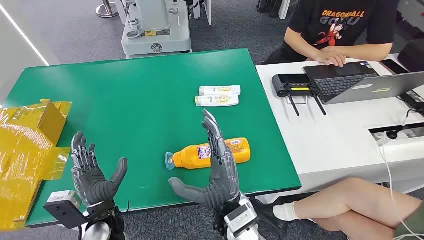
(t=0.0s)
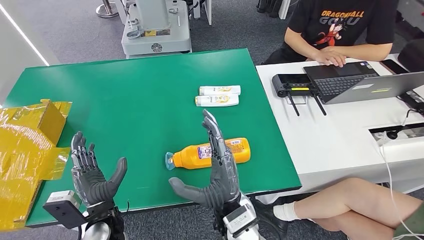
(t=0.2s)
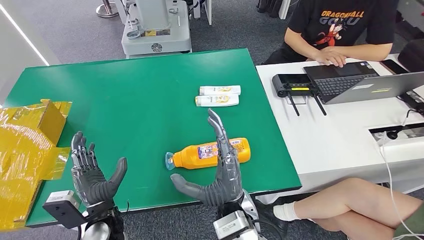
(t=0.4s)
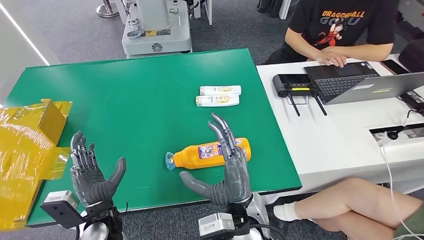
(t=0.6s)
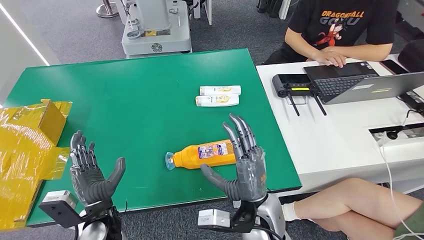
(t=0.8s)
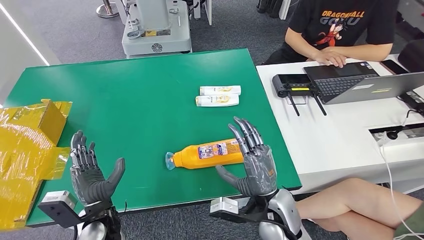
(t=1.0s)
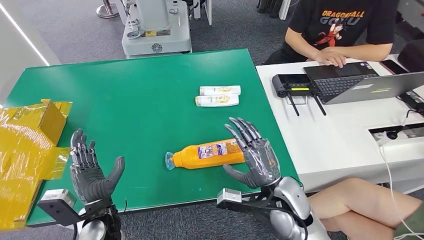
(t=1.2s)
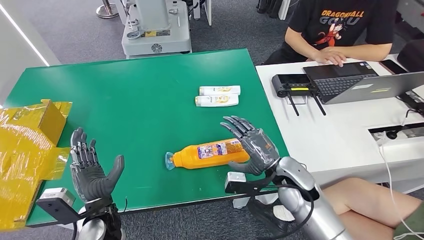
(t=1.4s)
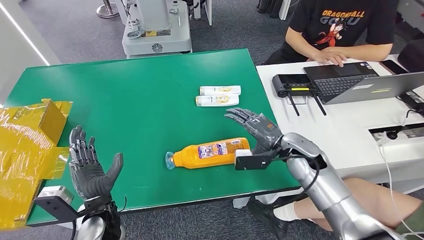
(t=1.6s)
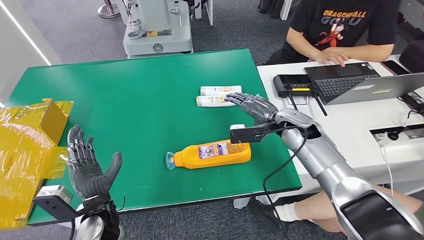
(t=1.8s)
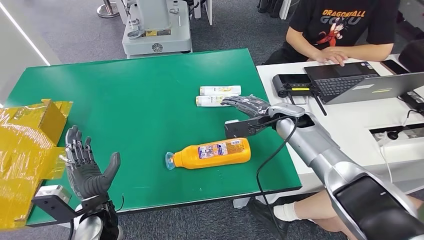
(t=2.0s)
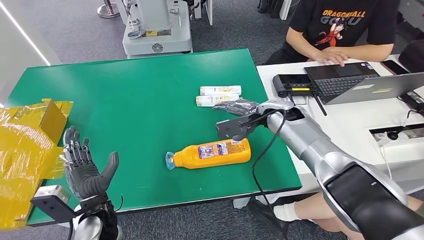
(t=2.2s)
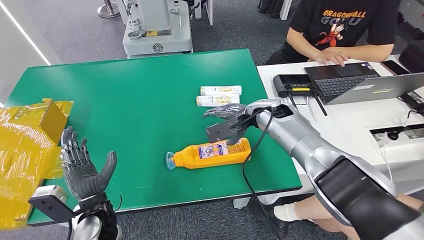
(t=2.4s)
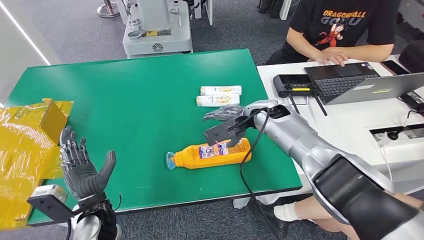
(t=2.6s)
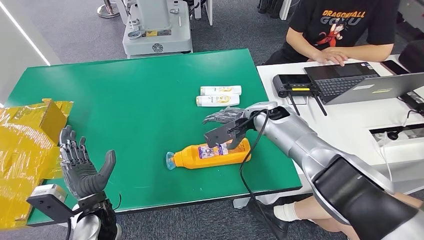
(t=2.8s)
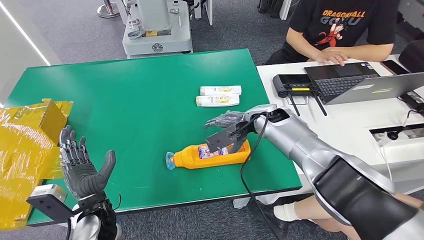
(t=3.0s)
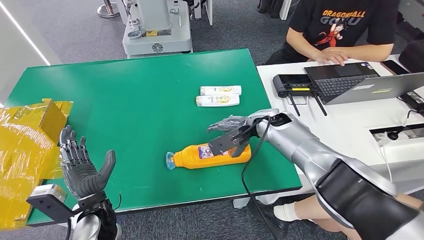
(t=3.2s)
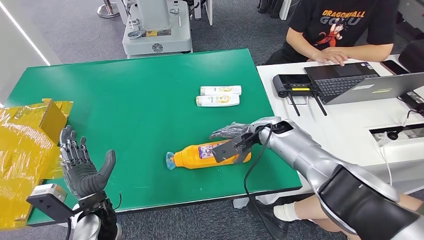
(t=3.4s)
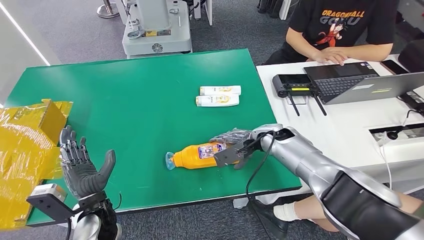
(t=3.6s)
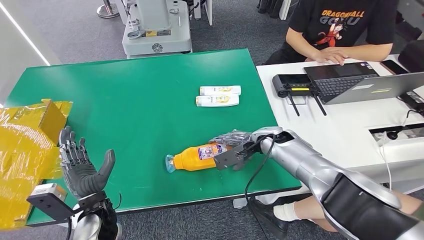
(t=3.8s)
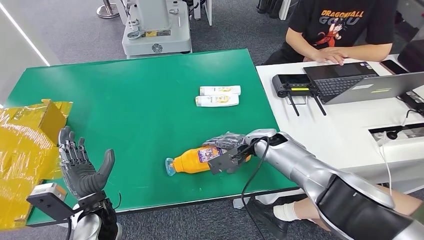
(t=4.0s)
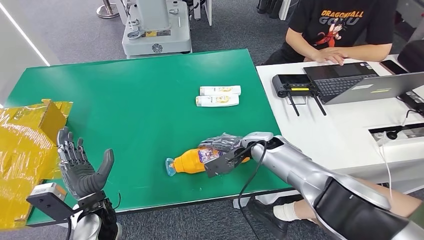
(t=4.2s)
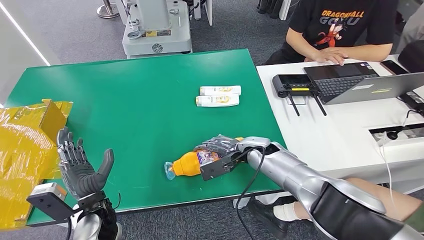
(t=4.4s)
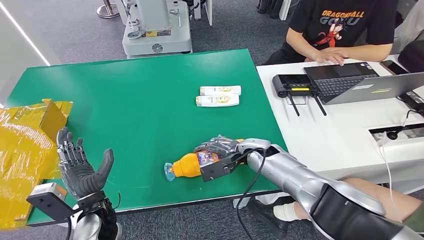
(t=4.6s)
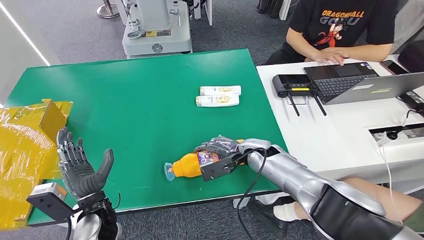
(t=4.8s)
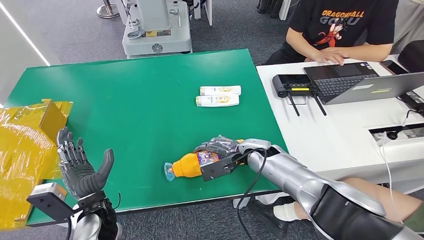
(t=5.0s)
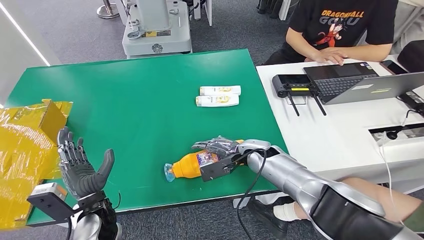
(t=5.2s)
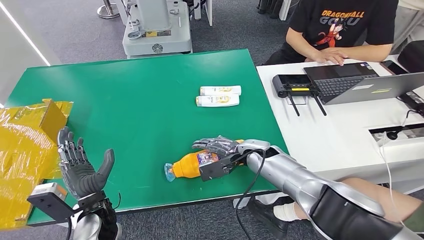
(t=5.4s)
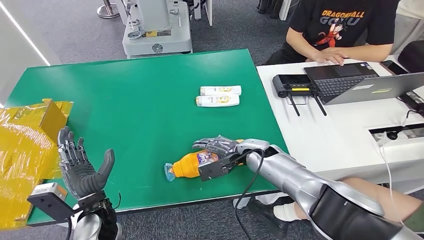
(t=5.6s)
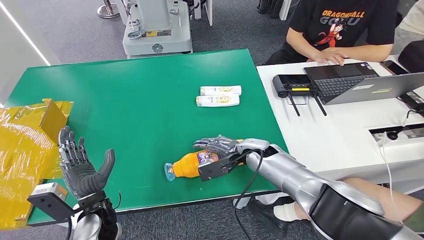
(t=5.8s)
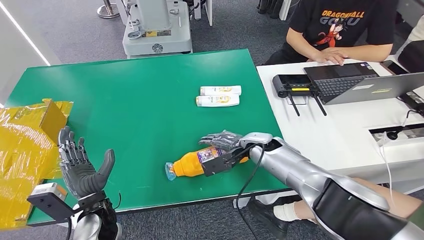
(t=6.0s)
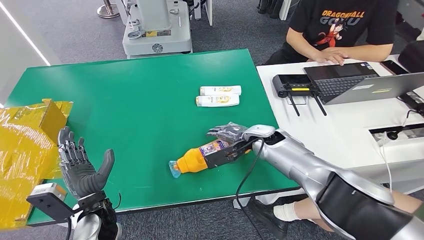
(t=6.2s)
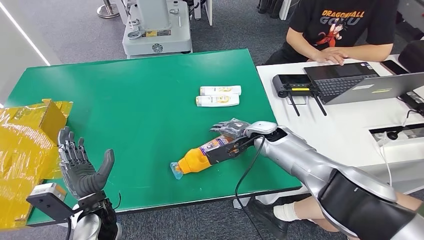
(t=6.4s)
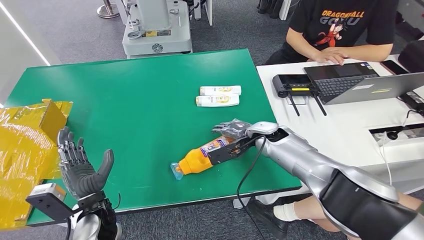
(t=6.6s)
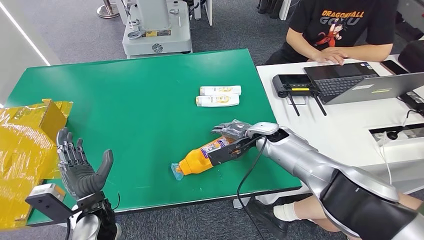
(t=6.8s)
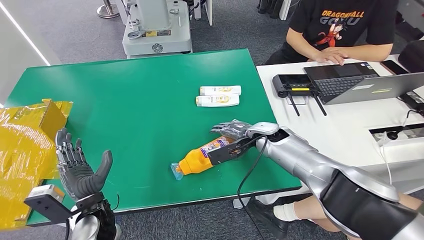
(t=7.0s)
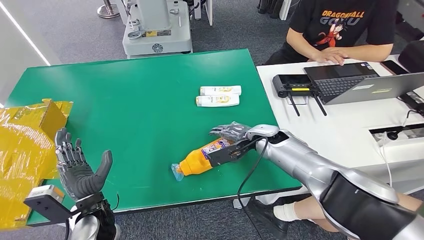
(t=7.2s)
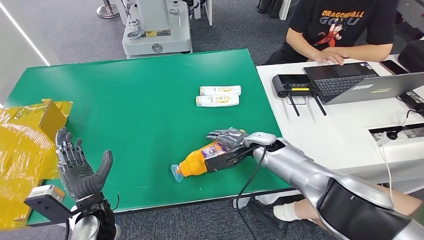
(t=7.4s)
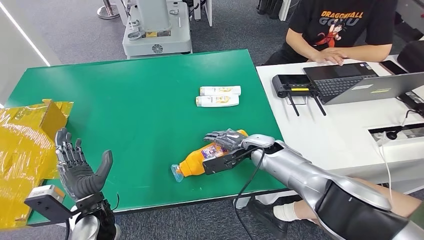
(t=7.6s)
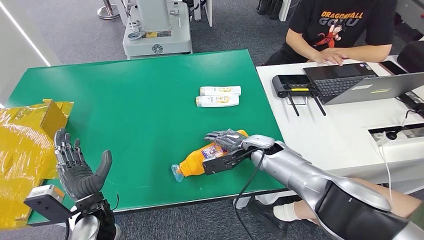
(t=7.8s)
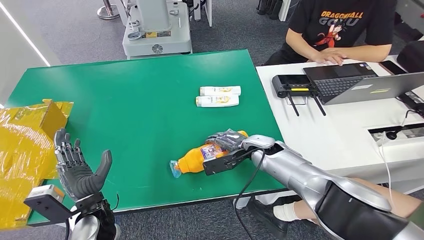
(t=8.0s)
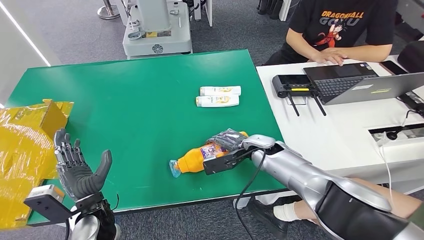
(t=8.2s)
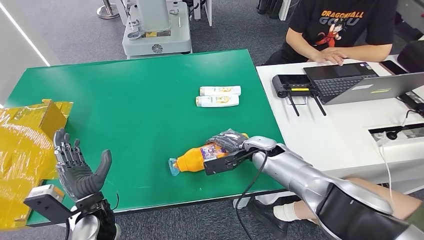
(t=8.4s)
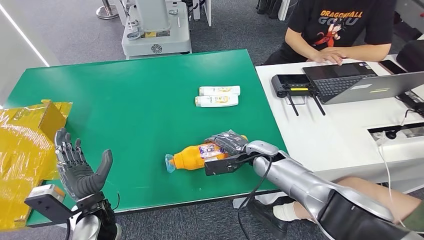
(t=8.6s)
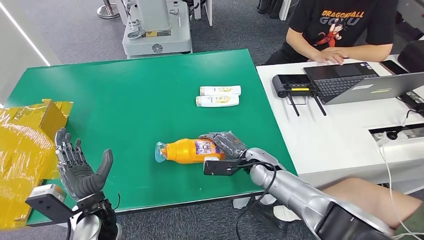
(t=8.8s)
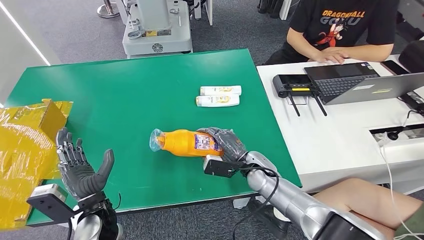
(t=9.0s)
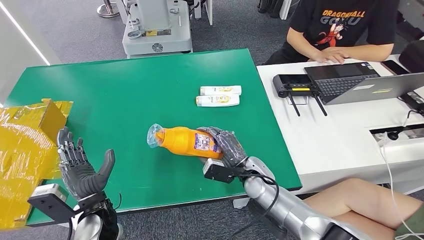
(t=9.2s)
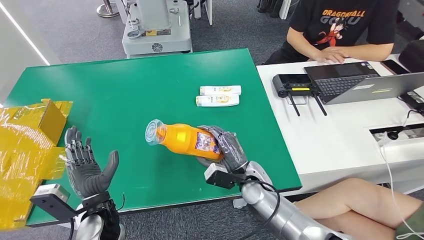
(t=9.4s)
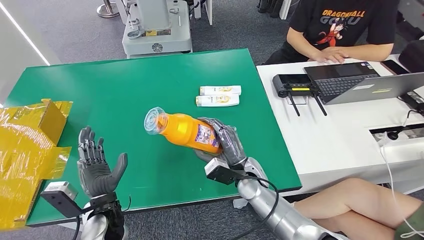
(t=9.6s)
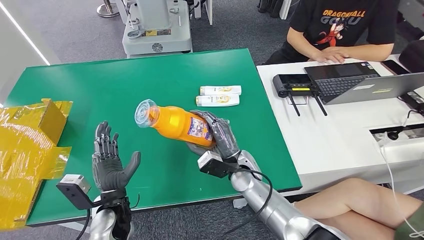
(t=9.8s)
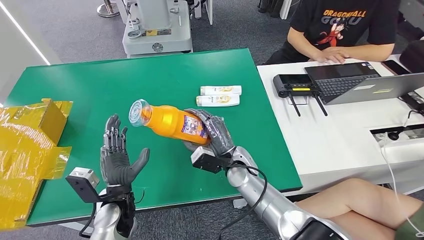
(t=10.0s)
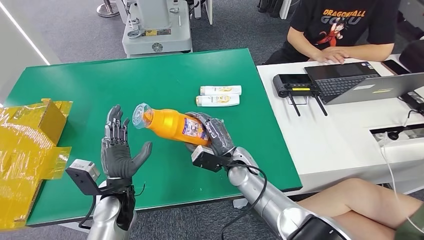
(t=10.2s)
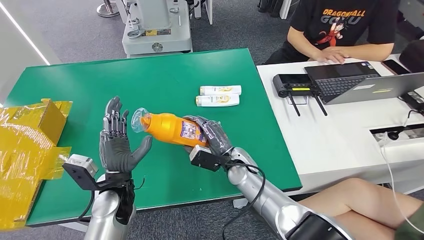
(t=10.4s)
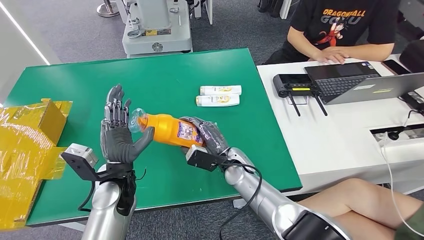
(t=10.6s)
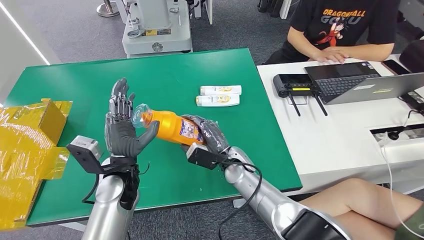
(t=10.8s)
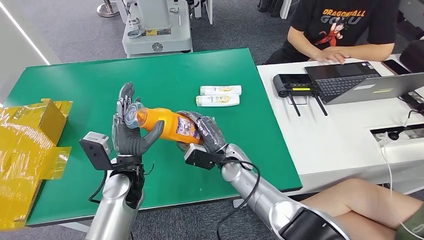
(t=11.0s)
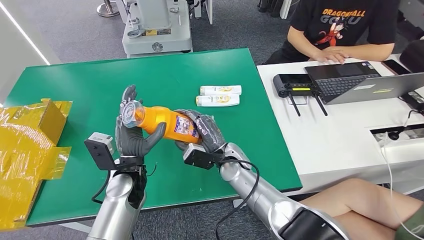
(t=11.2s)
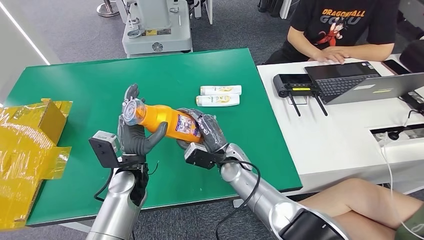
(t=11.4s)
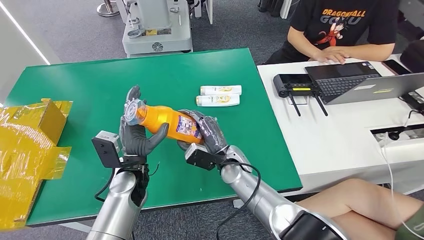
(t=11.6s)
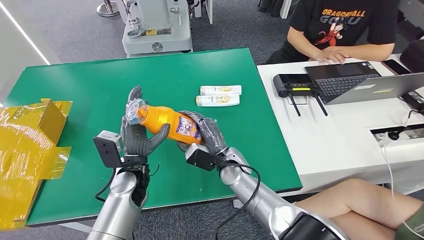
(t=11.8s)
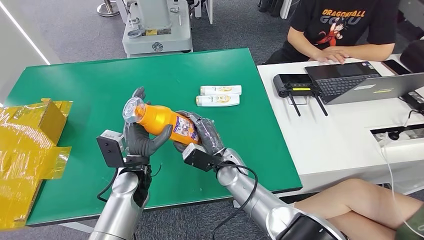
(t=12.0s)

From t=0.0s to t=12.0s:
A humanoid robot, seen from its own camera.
Step, from t=0.0s to t=9.2s: Pick up the bottle from the table.
From t=1.6s to t=3.0s: The right hand is displaced forward and upward by approximately 10 cm.
From t=3.0s to t=4.4s: The right hand goes some 10 cm downward and backward.
From t=4.4s to t=7.6s: The hands move only a little.
From t=7.6s to t=9.0s: The right hand heads backward, covering about 5 cm.
From t=9.0s to t=10.4s: The right hand travels to the left by about 5 cm. The left hand ends up roughly 5 cm from where it was.
From t=10.4s to t=12.0s: There are only small adjustments of the hands.

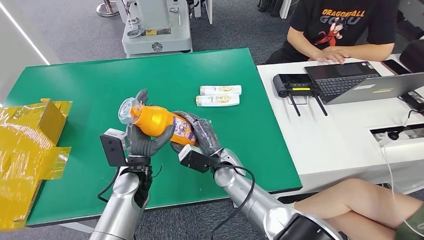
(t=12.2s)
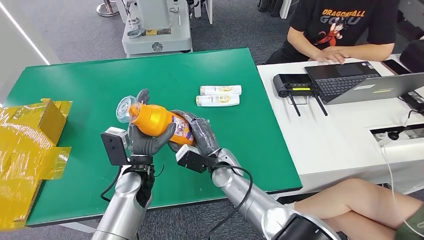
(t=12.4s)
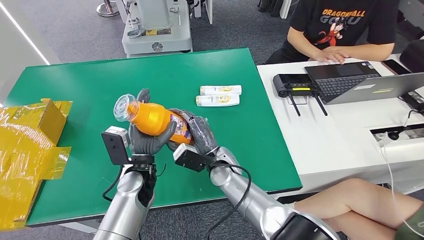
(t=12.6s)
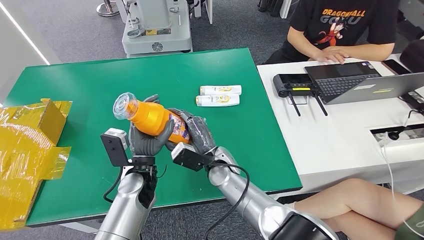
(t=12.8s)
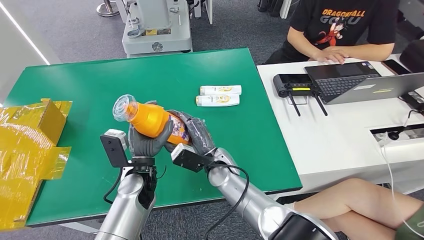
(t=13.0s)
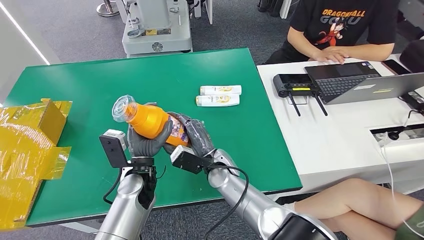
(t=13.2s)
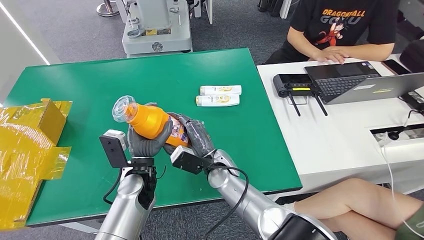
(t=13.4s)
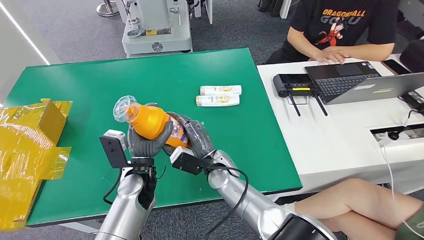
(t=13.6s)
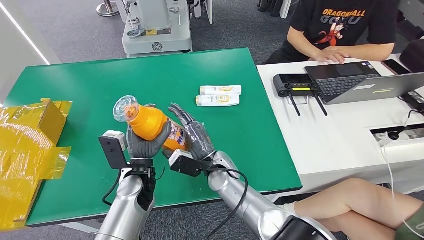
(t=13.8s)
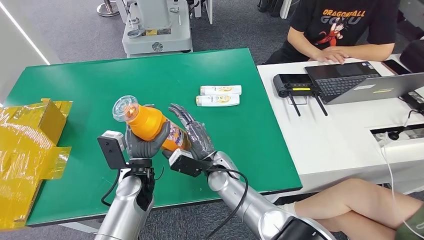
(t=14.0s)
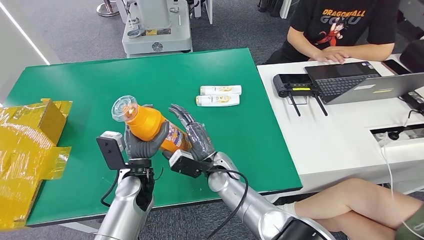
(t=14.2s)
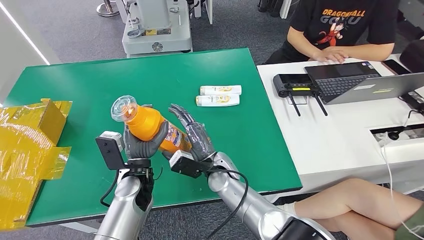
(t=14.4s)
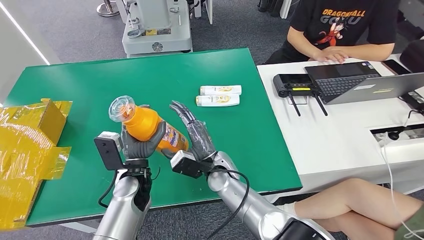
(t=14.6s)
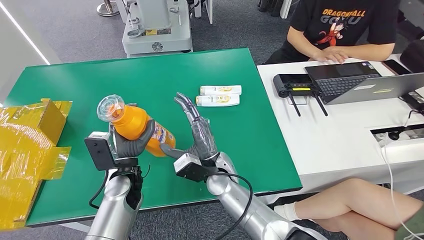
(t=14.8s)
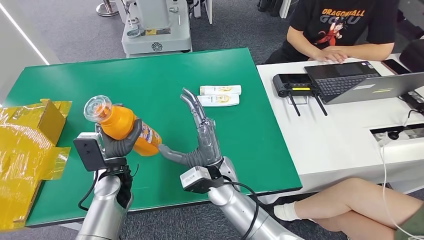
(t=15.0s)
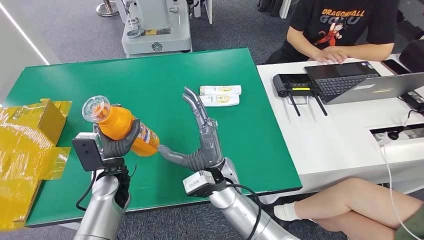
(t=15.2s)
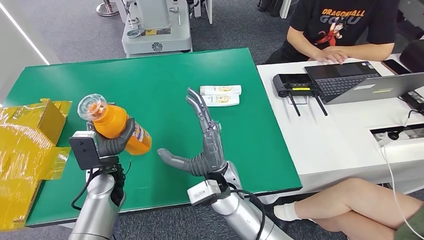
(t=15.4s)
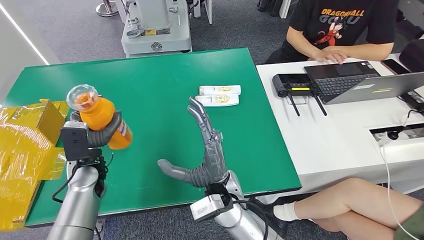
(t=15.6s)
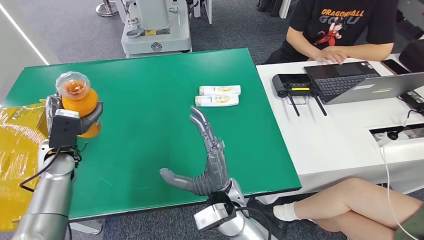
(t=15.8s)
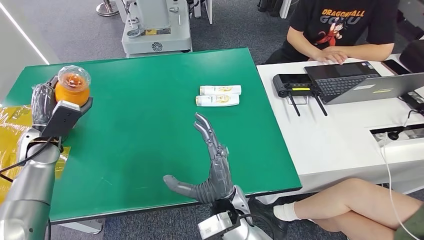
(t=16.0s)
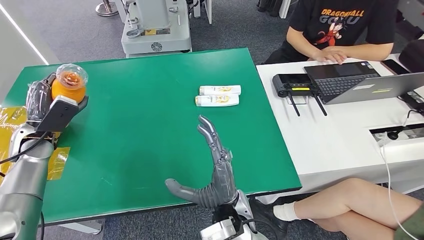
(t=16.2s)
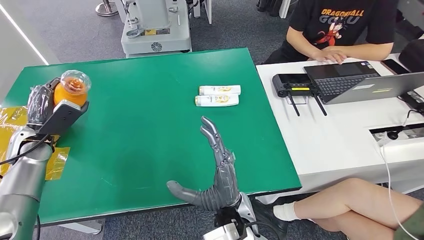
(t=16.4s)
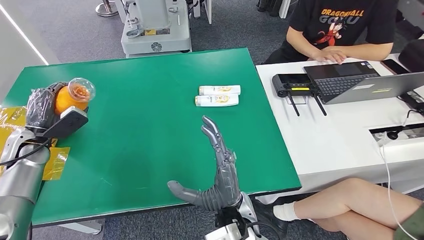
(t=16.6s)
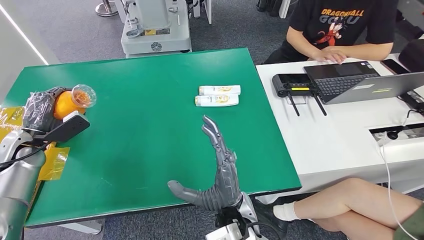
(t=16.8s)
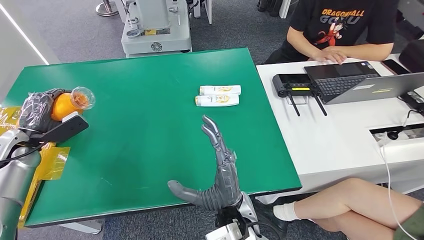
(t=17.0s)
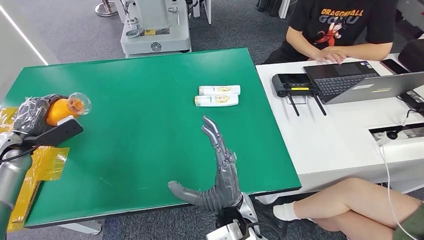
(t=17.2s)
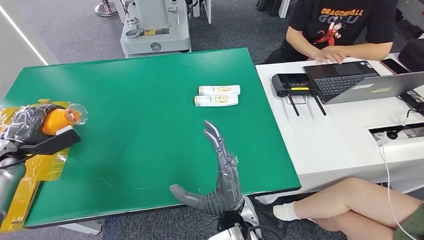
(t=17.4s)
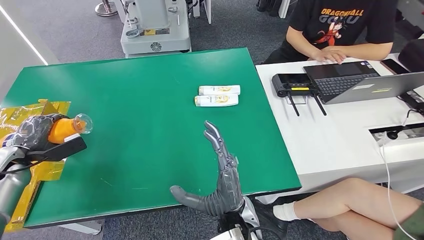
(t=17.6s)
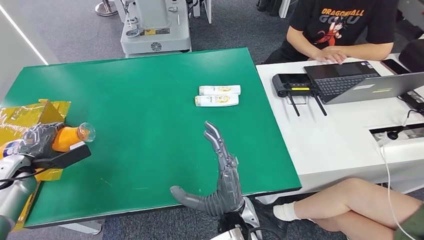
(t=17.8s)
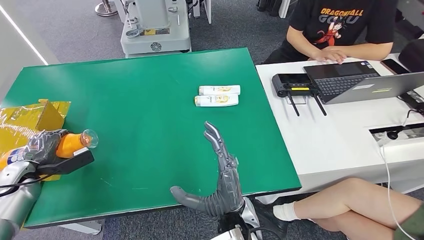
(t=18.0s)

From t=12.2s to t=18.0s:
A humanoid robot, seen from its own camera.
From t=12.2s to t=13.6s: The hands stay close to where they were, moving slightly.
From t=13.6s to t=15.0s: The left hand is displaced to the left by approximately 5 cm. Meanwhile the right hand ends up roughly 5 cm from where it was.
From t=15.0s to t=16.6s: The left hand shifts some 25 cm to the left and forward, while the right hand moves backward, approximately 10 cm.
From t=16.6s to t=18.0s: The left hand travels downward and to the left by about 10 cm.
